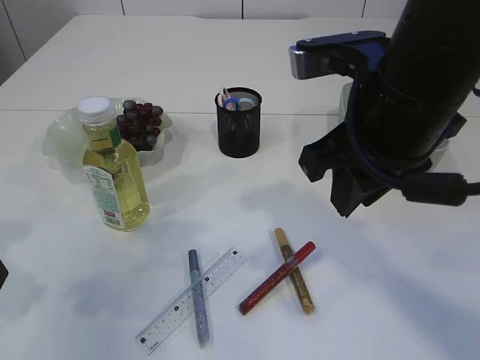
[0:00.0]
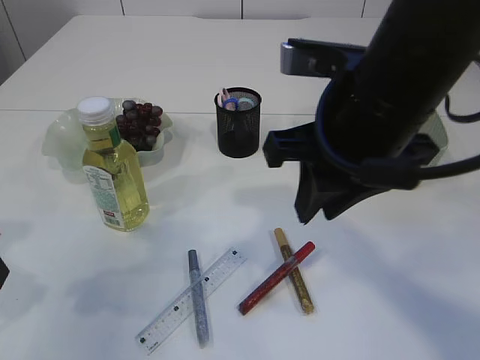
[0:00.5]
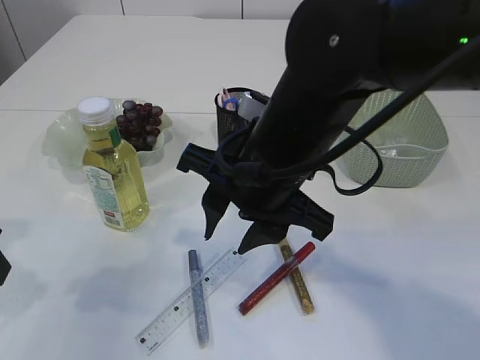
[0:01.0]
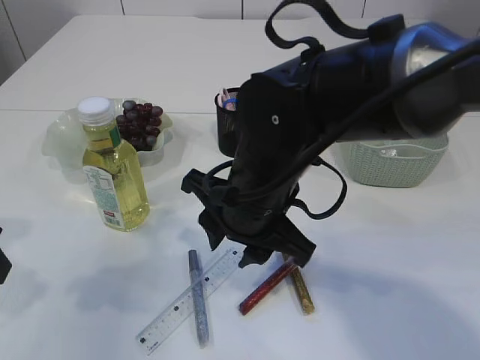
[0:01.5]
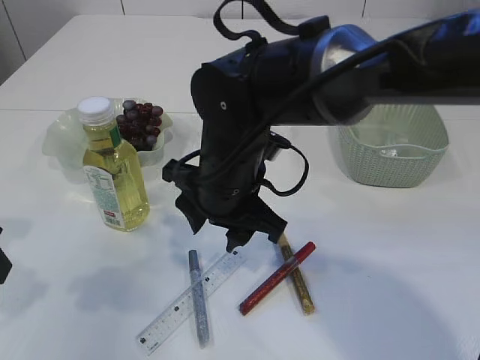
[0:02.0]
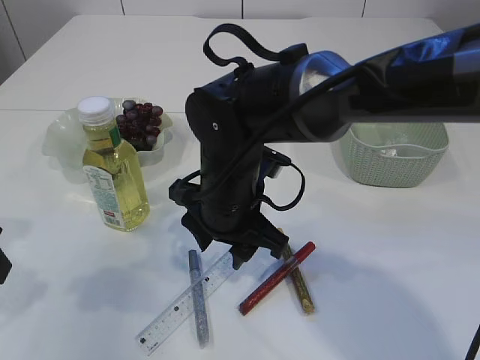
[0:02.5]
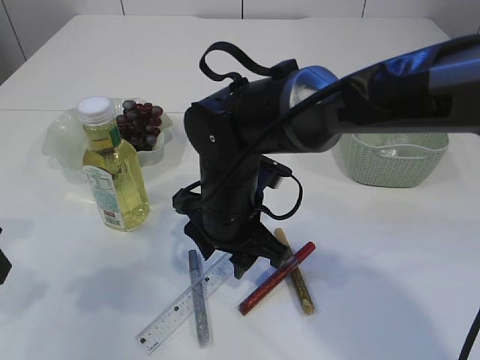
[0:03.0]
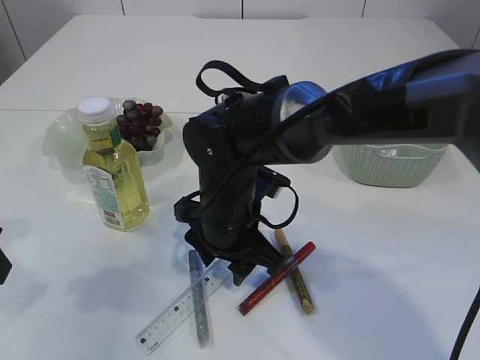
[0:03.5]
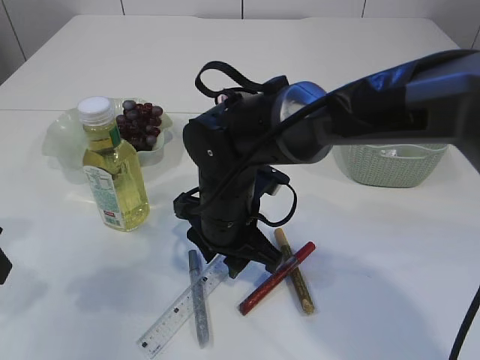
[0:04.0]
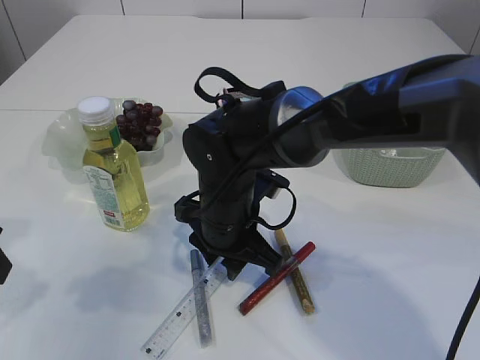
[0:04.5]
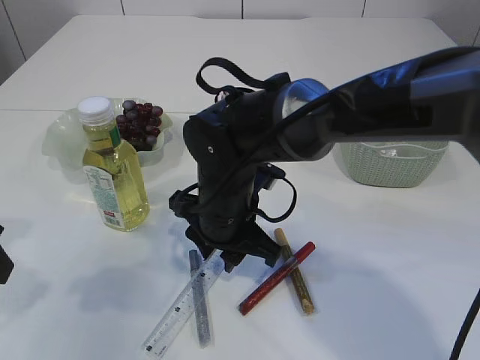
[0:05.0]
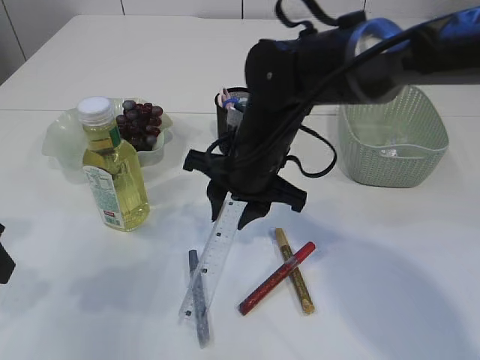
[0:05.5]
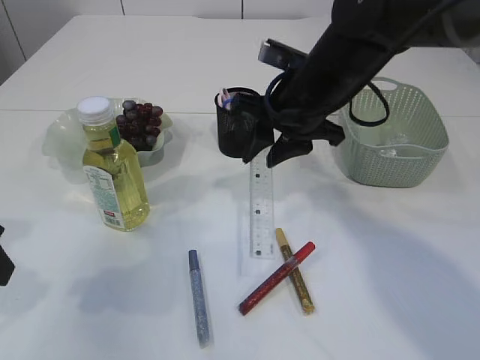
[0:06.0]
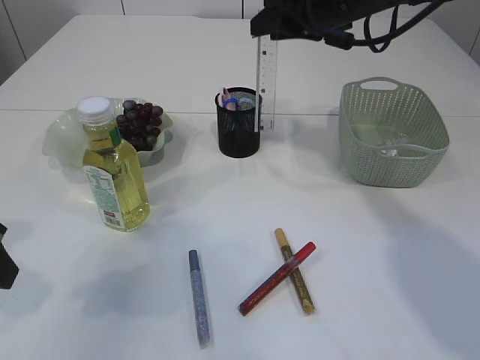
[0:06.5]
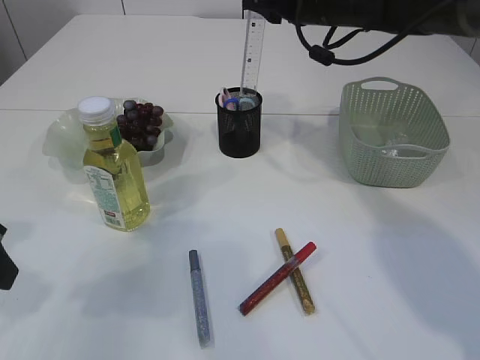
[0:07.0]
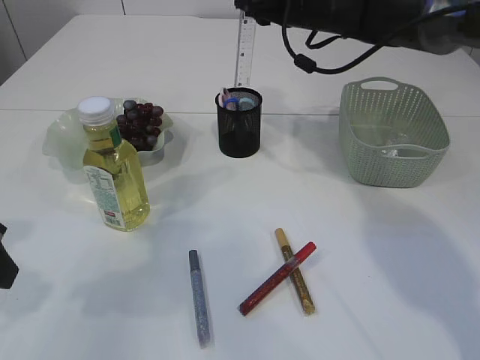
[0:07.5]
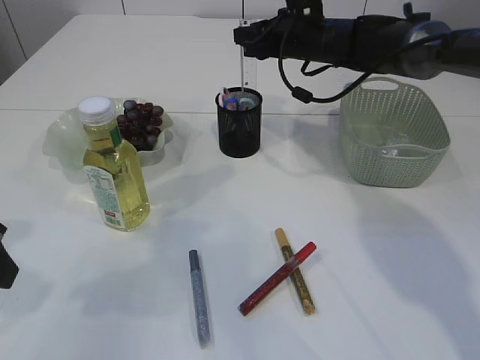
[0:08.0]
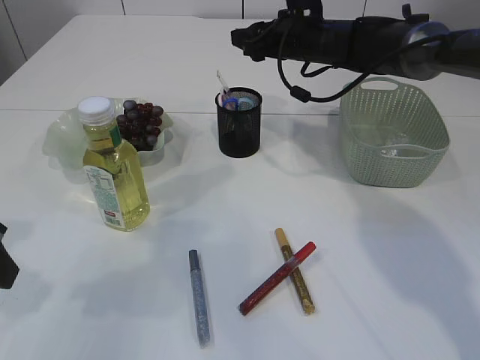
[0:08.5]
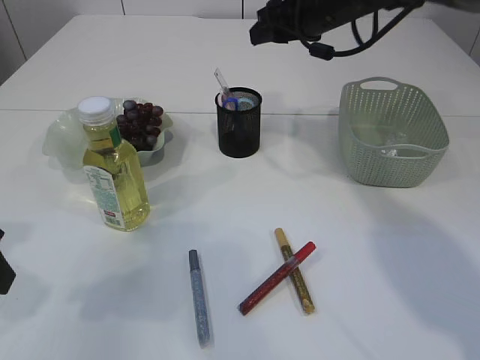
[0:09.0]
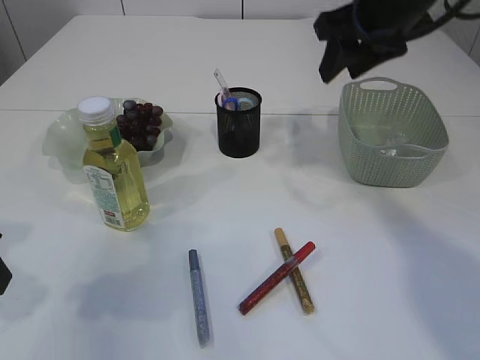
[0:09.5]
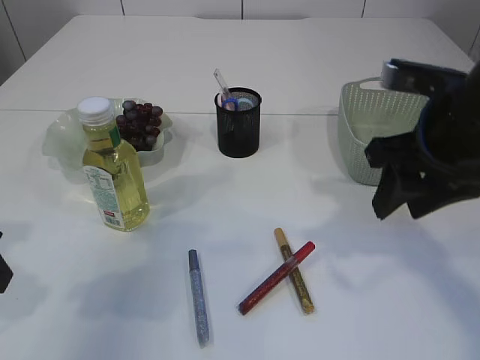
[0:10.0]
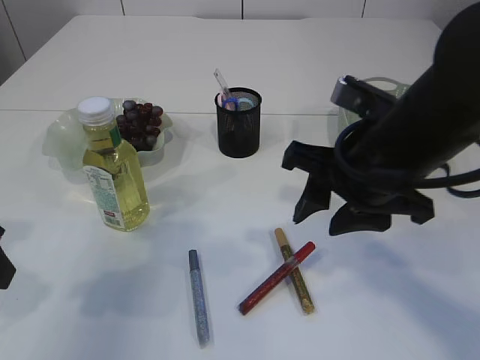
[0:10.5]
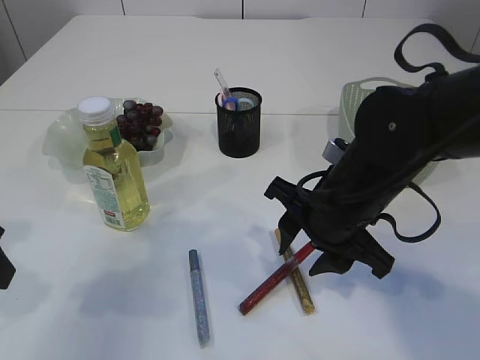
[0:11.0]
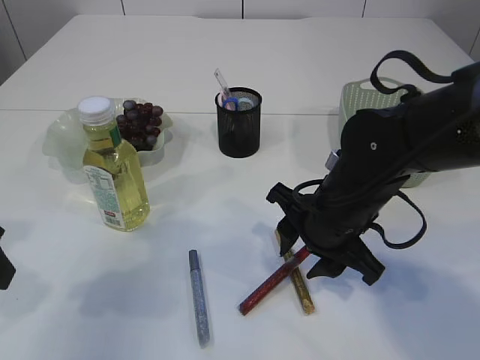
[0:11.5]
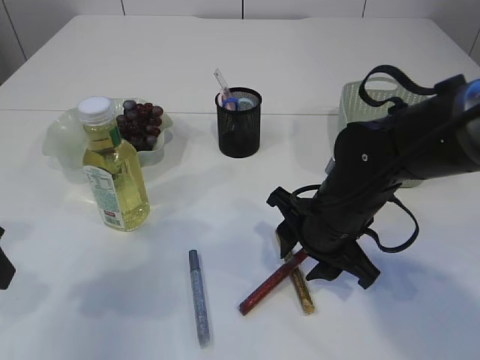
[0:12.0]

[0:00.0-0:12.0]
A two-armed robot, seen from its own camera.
Step, 0:00.0 to 0:05.5: pick up the ruler.
Step, 0:06.0 to 0:08.5: Place the ruler into the pen holder.
0:00.0 to 0:02.0: The right gripper heads to the left, downward and forward, covering about 20 cm.
0:02.0 to 0:04.0: The right gripper travels downward by approximately 5 cm.
0:04.0 to 0:06.0: The right gripper heads to the right, upward and forward, covering about 15 cm.
0:06.0 to 0:08.0: The right gripper shifts some 15 cm forward.
0:08.0 to 0:10.0: The right gripper moves backward, roughly 25 cm.
0:10.0 to 0:12.0: The right gripper heads downward and to the left, covering about 15 cm.

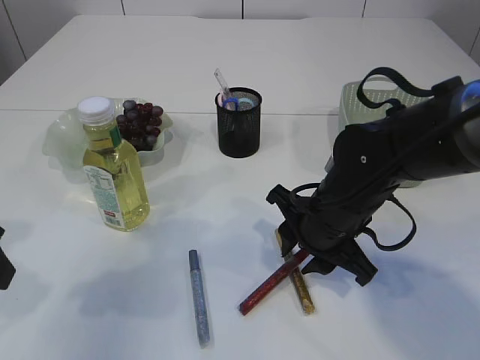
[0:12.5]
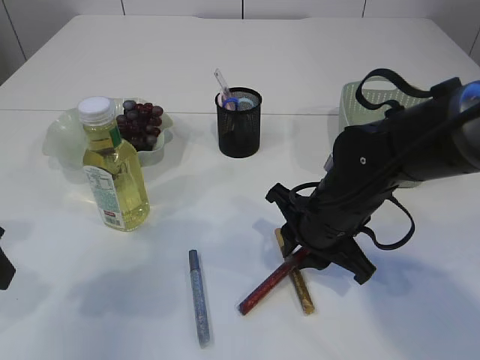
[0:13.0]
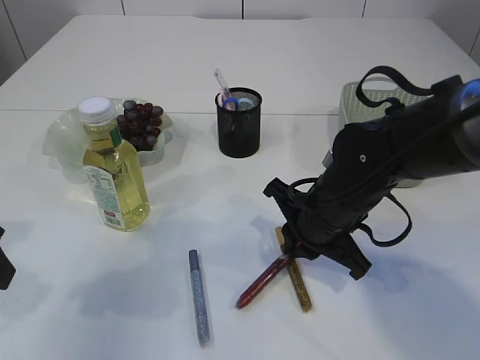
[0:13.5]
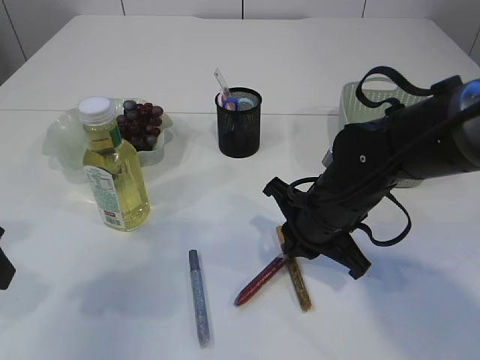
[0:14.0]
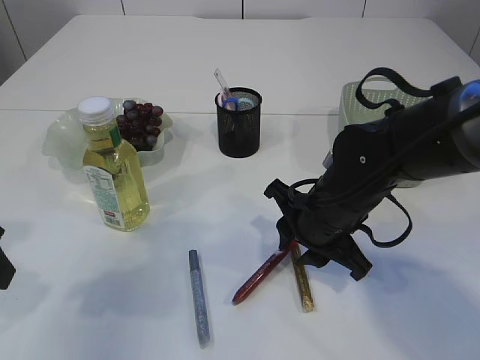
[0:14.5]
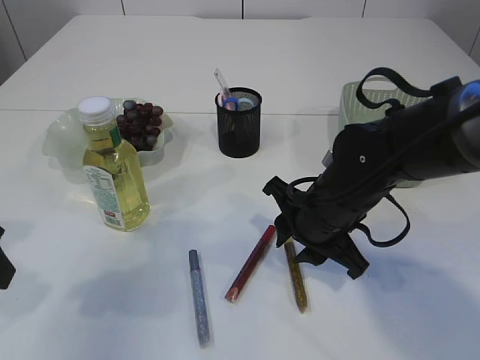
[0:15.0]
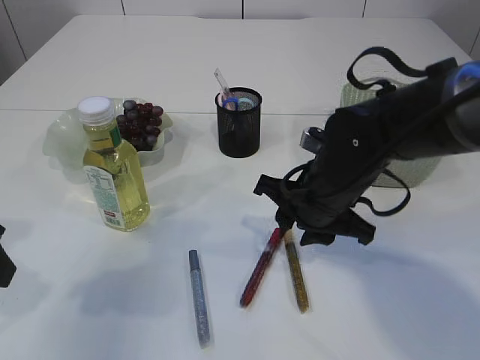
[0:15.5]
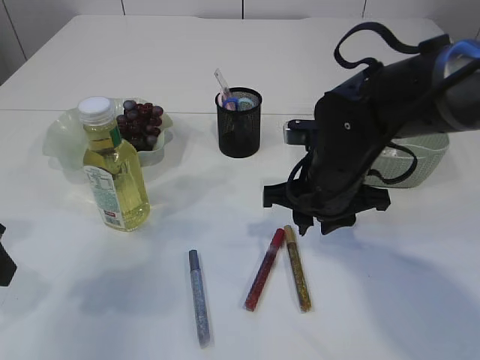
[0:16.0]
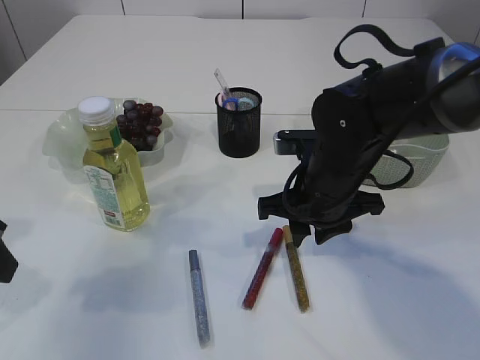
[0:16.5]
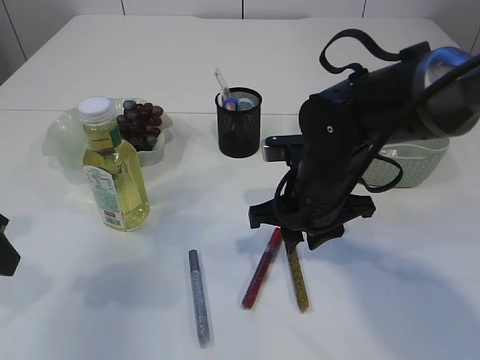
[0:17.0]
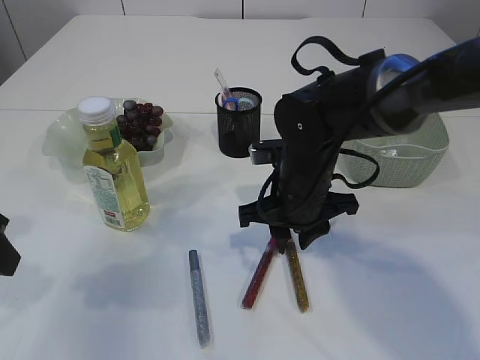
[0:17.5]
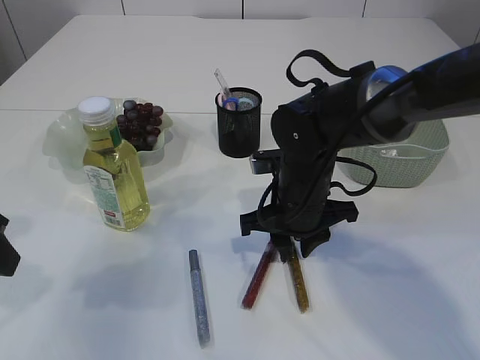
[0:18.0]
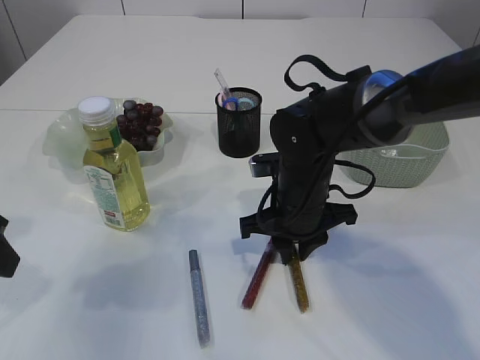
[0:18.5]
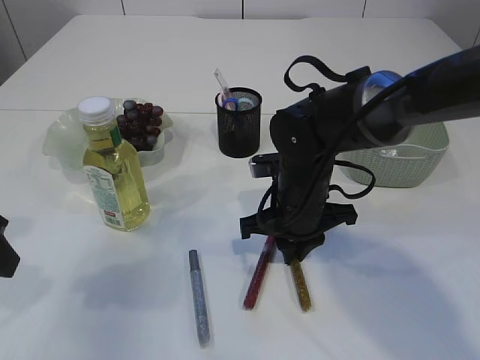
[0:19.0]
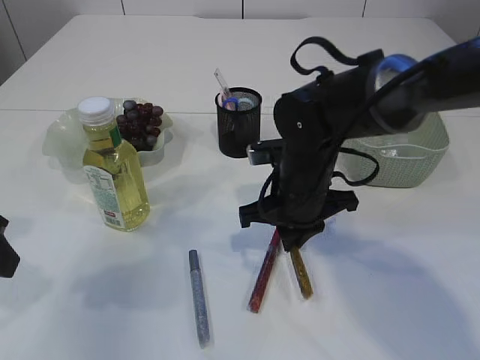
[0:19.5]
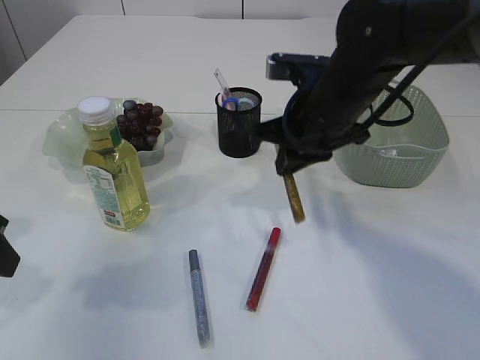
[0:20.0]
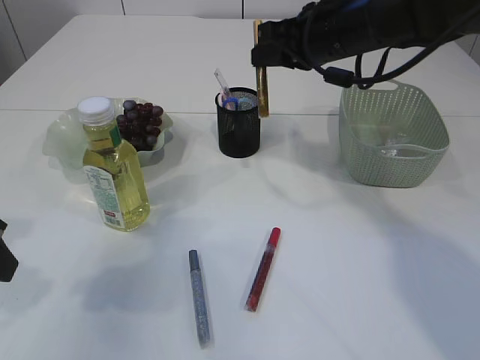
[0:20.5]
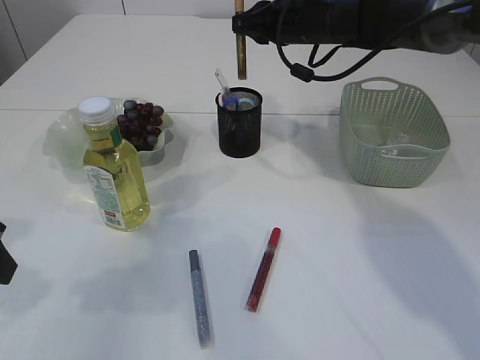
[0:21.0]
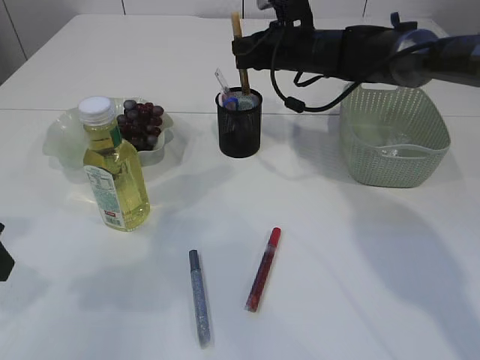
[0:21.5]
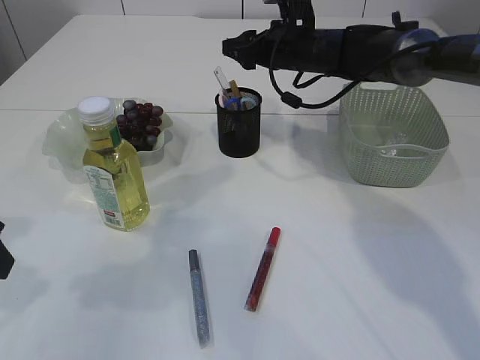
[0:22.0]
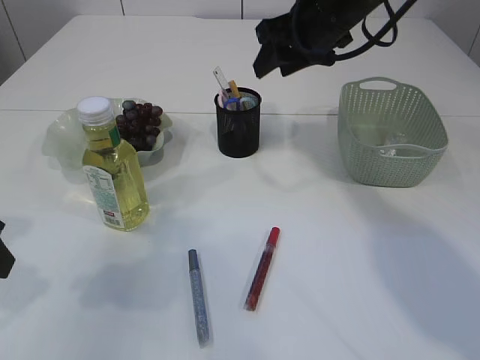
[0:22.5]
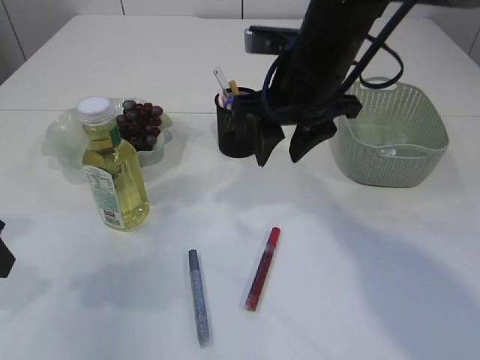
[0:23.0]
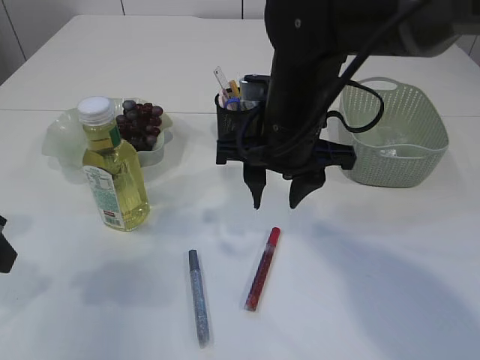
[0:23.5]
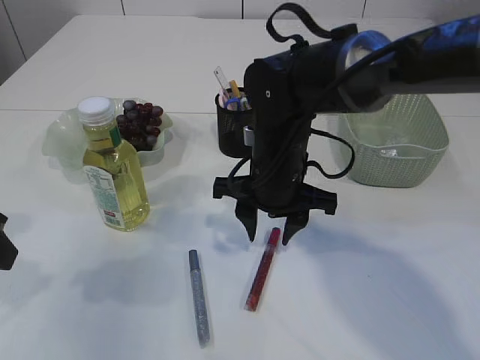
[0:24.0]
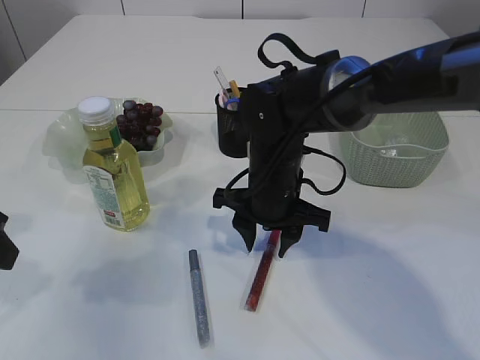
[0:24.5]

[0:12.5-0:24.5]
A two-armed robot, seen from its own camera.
Step, 0:12.5 to 0:19.5: pick up the yellow glue.
Step, 0:20.0 to 0:22.0: place the yellow glue into the pen holder.
0:12.5 to 0:14.5: The right gripper closes, then opens again.
0:16.5 to 0:18.5: The grippers stay close to where they were, moving slightly.
0:18.5 to 0:20.5: The right gripper is displaced upward and forward by some 15 cm.
0:20.5 to 0:22.5: The right gripper travels forward and back again, roughly 10 cm each way, and opens up.
0:22.5 to 0:24.5: The right gripper heads downward, backward and to the left, covering about 20 cm.

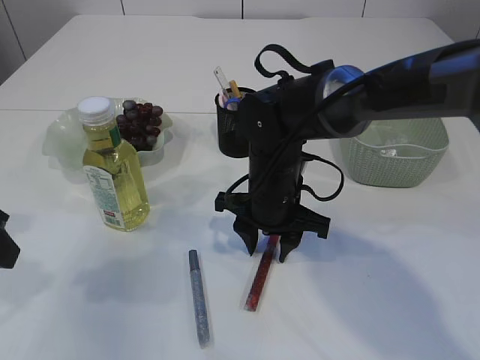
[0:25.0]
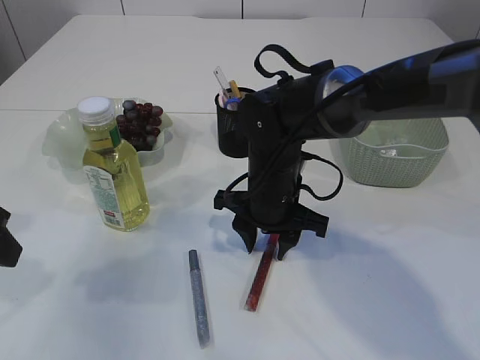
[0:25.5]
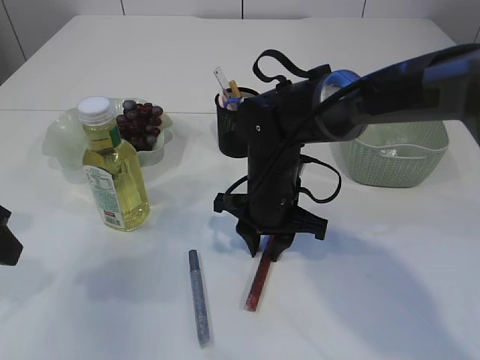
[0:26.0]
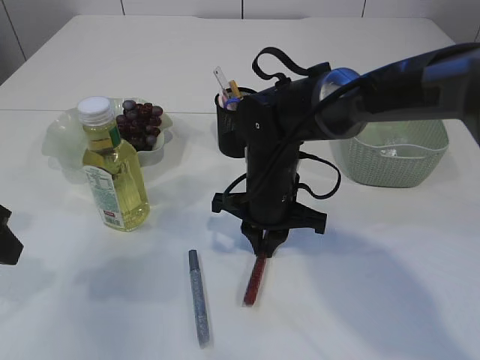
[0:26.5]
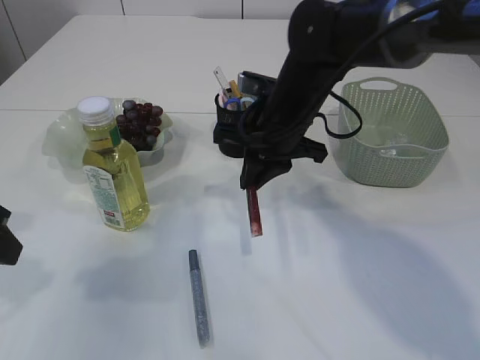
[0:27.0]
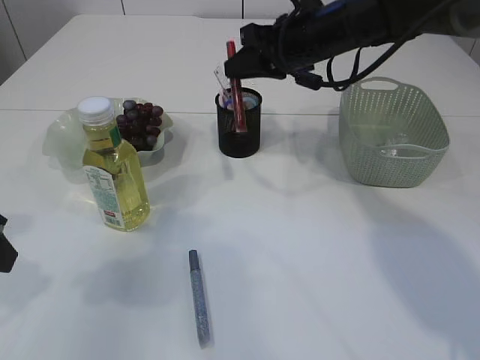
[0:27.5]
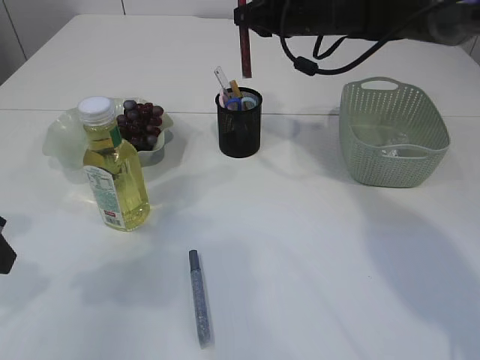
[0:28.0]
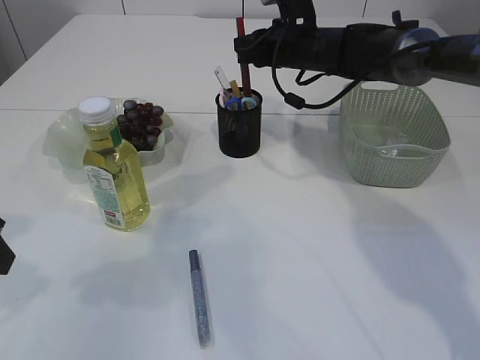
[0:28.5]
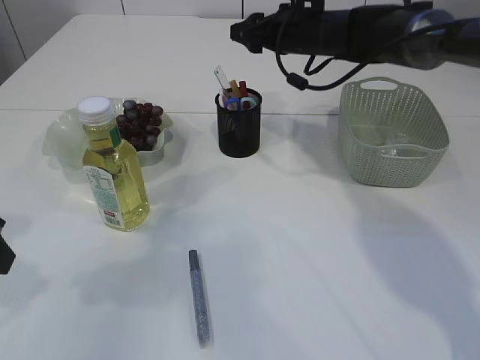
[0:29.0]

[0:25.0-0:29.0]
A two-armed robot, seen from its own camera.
Step, 0:25.0 to 0:27.0: pick up the red glue.
0:25.0 to 0:27.0: The right gripper shifts some 5 cm upward, and closes.
0:27.0 to 0:29.0: The right gripper travels forward and to the right by approximately 15 cm, and opens.
